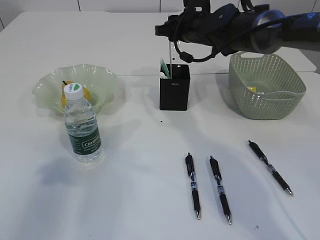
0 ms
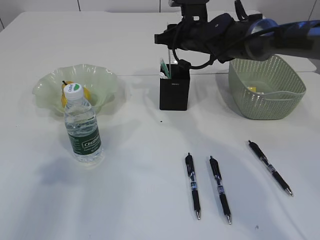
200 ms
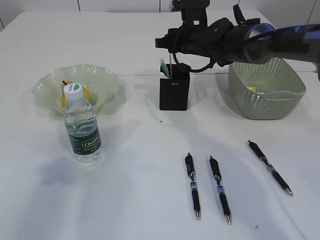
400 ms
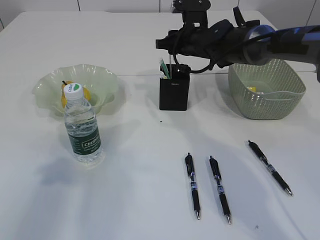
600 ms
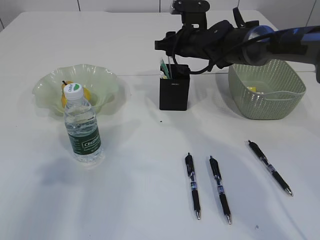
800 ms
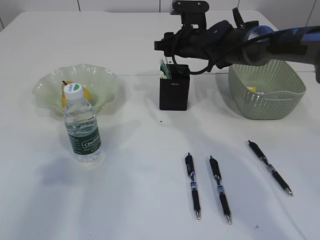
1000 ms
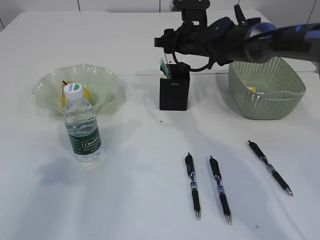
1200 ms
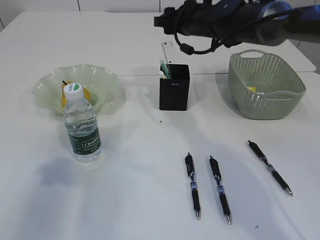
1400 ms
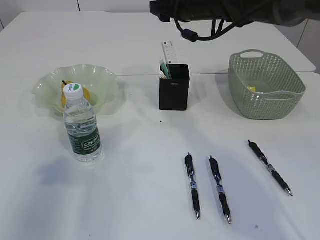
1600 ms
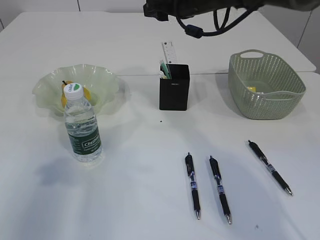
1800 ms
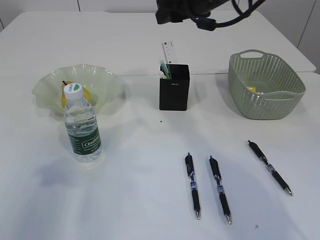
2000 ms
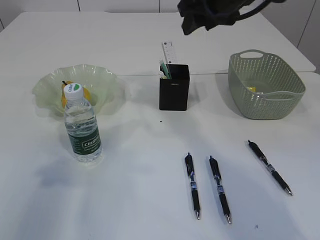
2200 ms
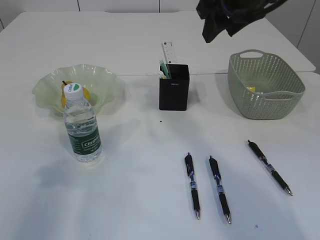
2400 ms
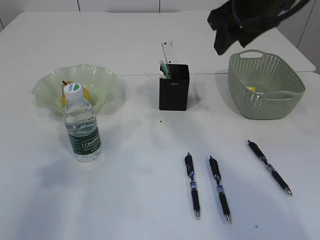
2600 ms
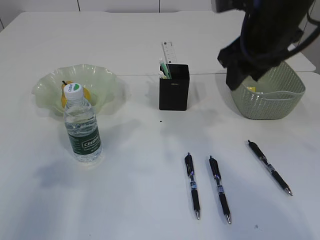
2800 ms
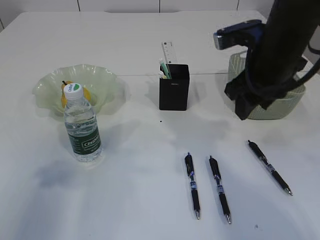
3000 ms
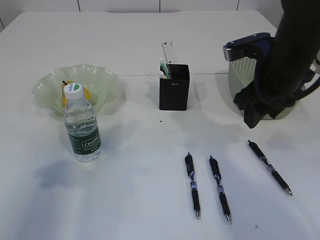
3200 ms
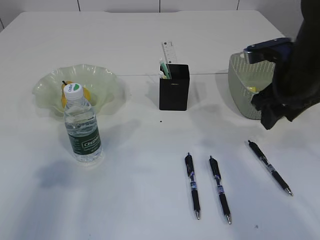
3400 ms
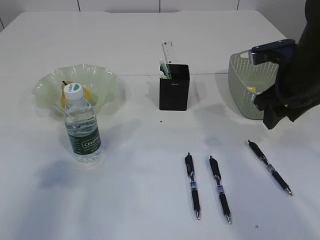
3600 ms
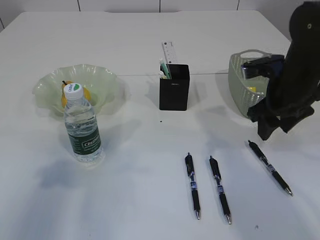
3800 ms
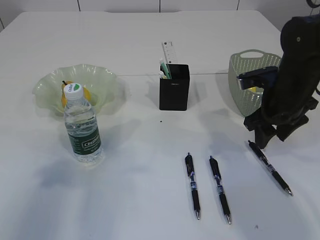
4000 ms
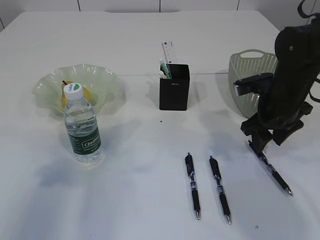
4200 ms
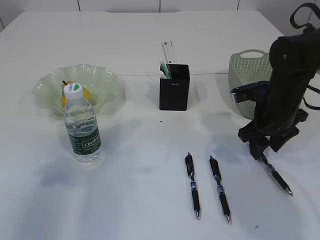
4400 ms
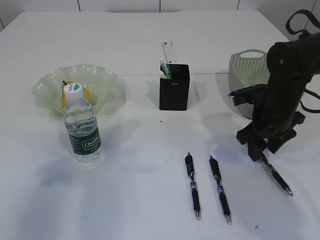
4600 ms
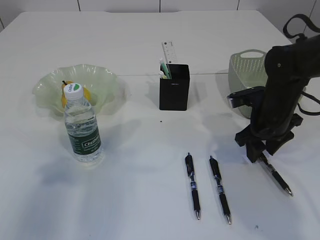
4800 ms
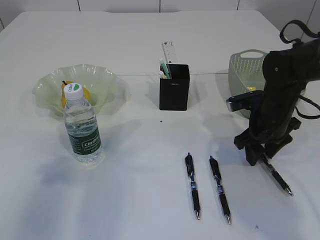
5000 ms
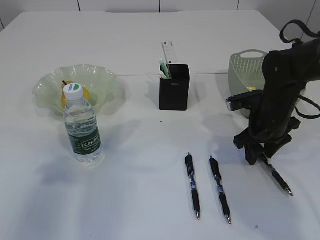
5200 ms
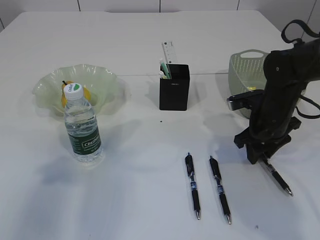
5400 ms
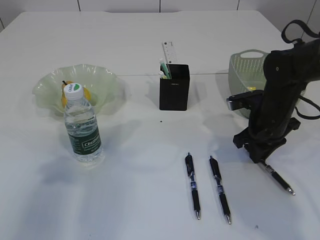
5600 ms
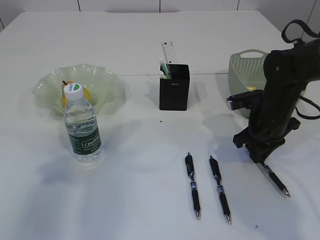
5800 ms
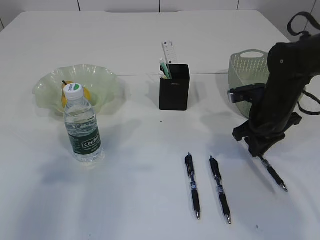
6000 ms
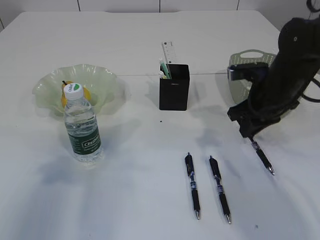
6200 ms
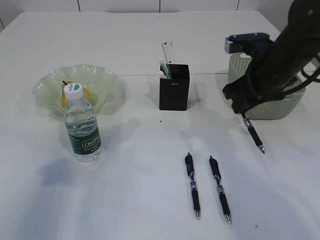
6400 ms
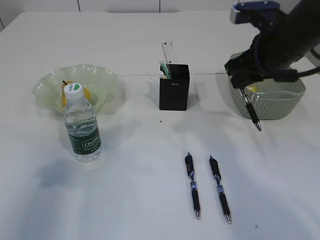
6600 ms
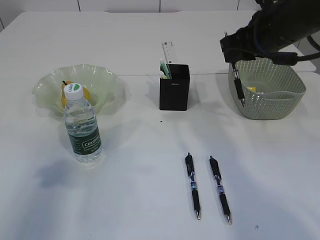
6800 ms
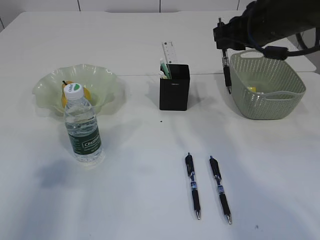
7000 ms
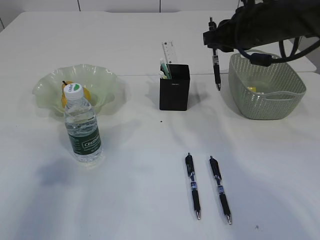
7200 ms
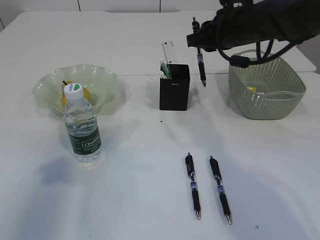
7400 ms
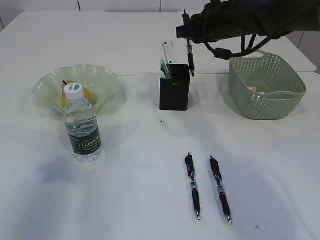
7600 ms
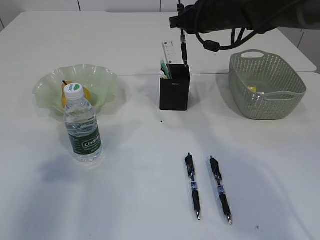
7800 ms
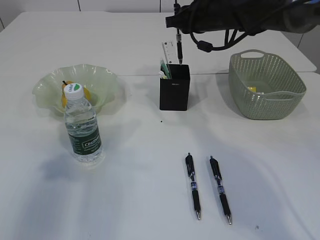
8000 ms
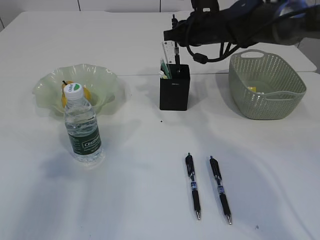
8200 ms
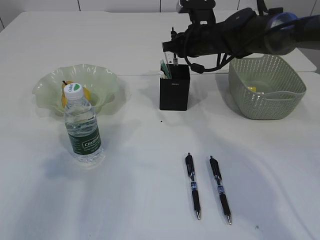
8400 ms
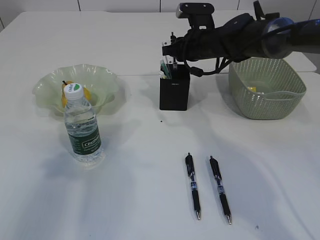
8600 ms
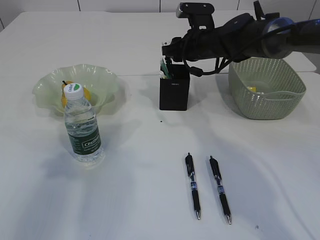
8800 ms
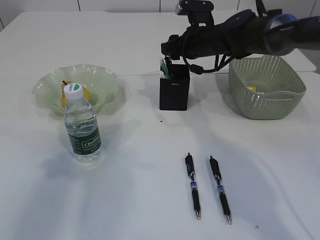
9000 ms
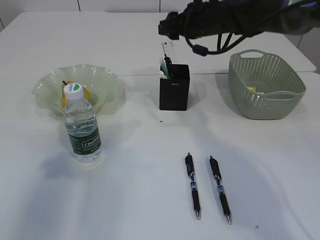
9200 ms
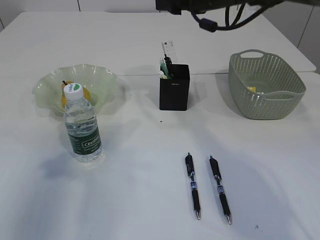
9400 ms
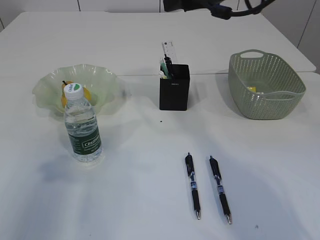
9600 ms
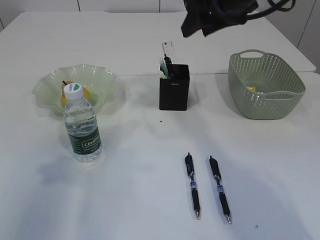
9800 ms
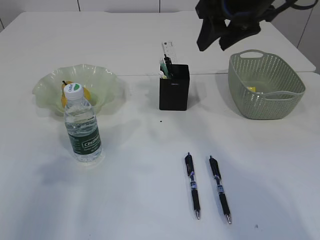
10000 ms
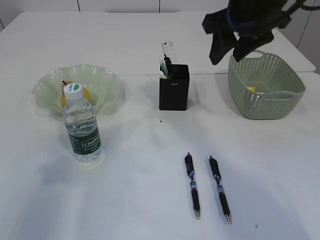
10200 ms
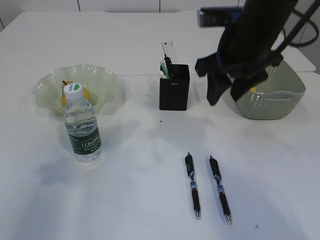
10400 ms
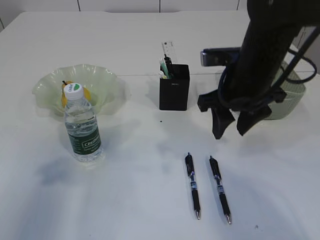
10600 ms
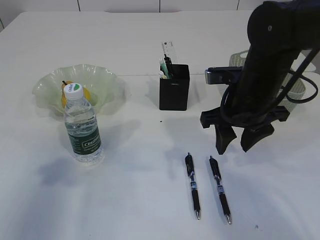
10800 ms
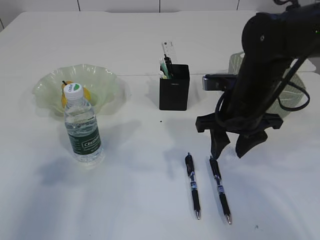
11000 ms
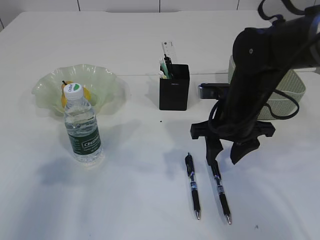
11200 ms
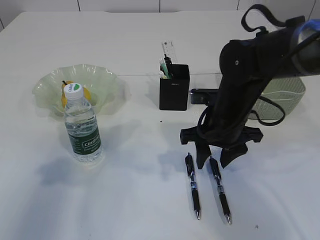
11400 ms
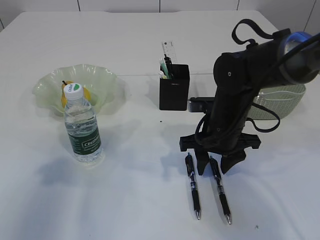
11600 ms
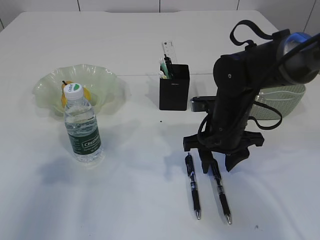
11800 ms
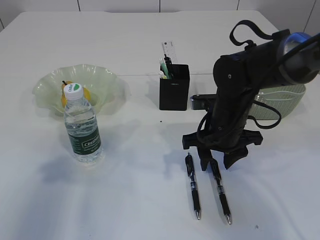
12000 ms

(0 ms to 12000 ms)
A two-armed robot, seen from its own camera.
Step, 1400 ms - 6000 ms: Pick up the pen with right arm.
Step, 6200 ms - 9000 ms: Place the pen into the pen holder.
0 ms - 1600 ms: The right gripper goes roughly 5 cm upward.
1600 ms - 3000 ms: The right gripper travels backward and to the right by some 15 cm.
3000 ms - 4400 ms: The right gripper moves downward and to the right, some 15 cm.
4400 ms - 6000 ms: The right gripper closes.
6000 ms - 7600 ms: The right gripper travels upward, to the left and forward by roughly 15 cm.
7600 ms - 9000 ms: The right gripper goes approximately 5 cm downward, and opens up.
9000 ms - 10400 ms: The right gripper moves backward and upward, approximately 15 cm.
10400 ms - 12000 ms: The right gripper goes approximately 15 cm downward.

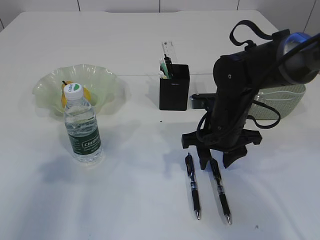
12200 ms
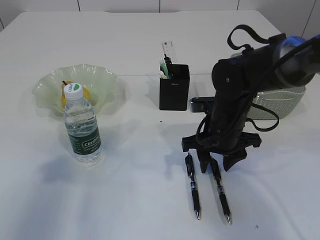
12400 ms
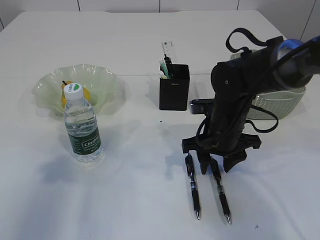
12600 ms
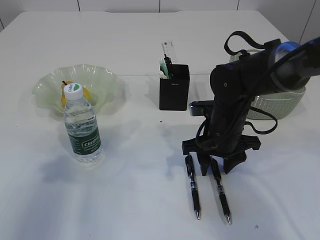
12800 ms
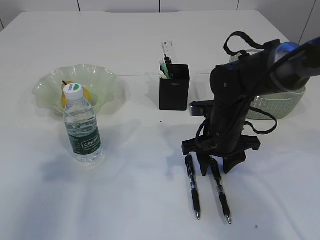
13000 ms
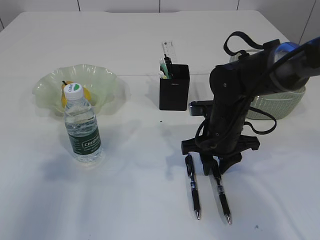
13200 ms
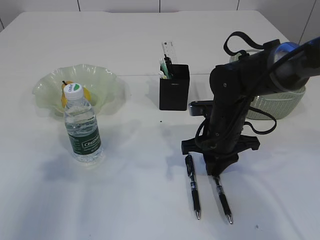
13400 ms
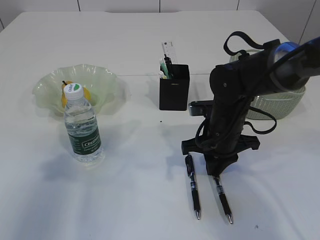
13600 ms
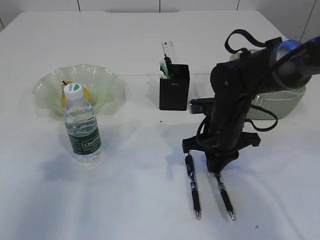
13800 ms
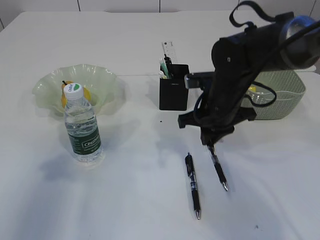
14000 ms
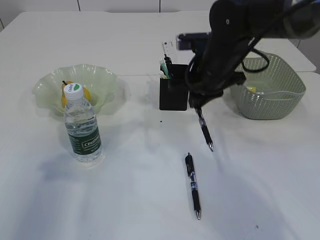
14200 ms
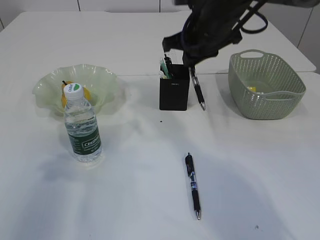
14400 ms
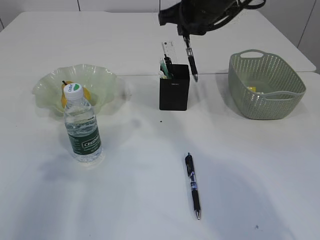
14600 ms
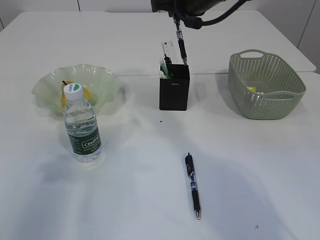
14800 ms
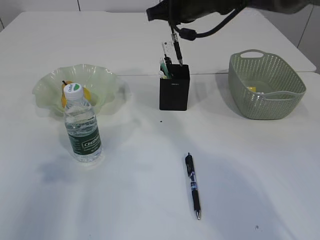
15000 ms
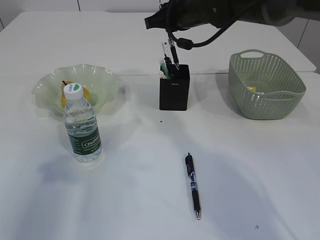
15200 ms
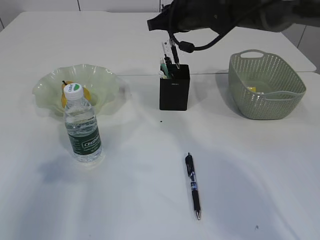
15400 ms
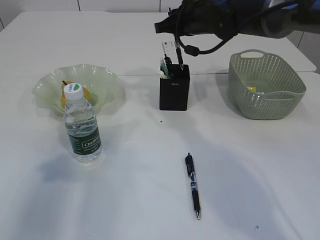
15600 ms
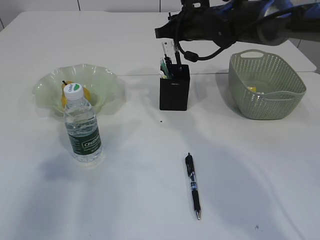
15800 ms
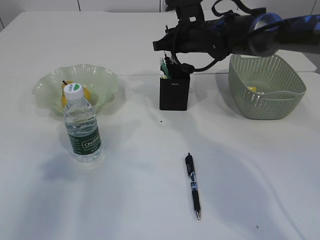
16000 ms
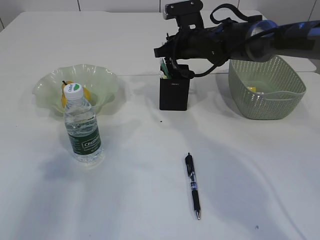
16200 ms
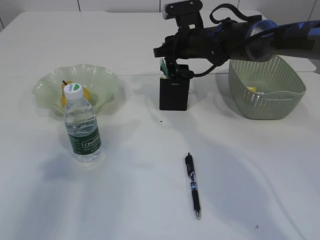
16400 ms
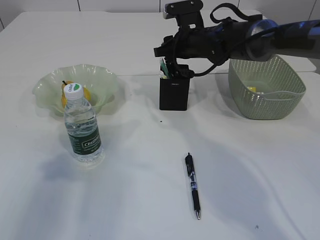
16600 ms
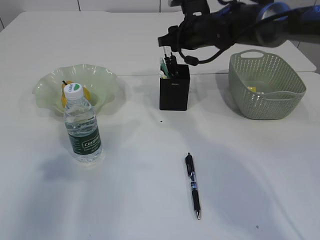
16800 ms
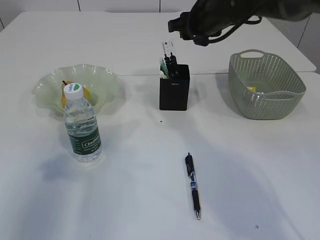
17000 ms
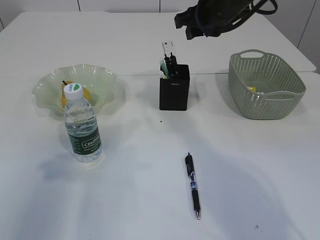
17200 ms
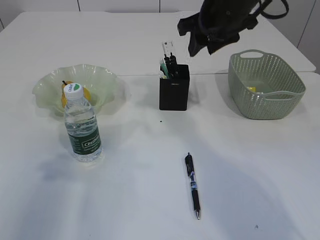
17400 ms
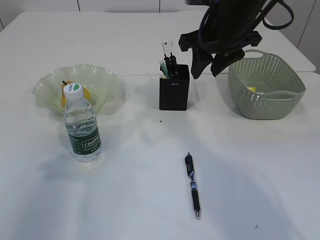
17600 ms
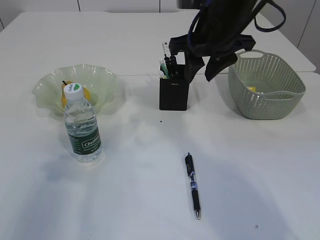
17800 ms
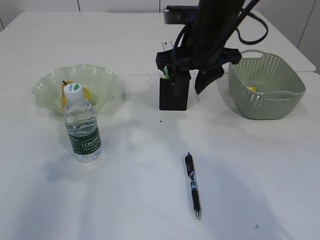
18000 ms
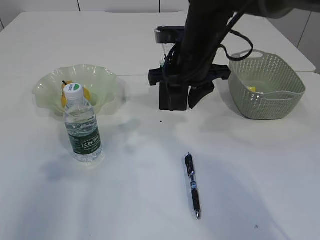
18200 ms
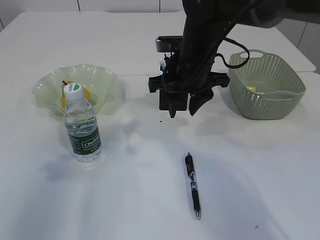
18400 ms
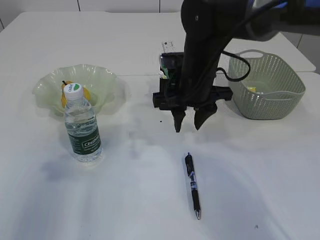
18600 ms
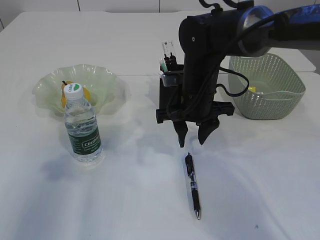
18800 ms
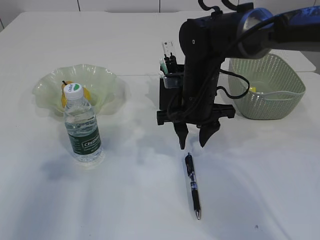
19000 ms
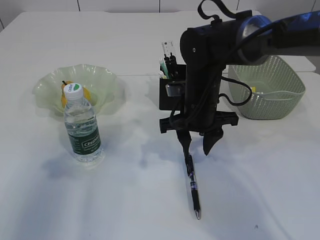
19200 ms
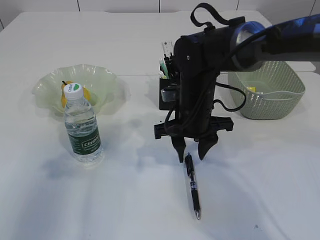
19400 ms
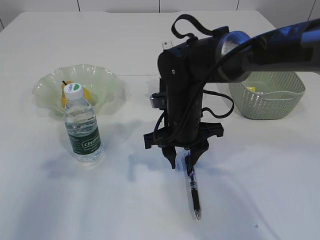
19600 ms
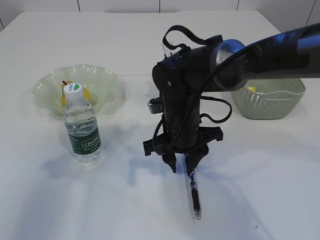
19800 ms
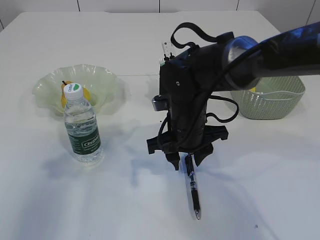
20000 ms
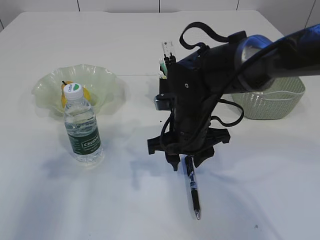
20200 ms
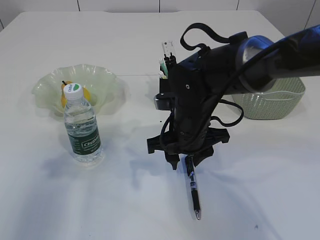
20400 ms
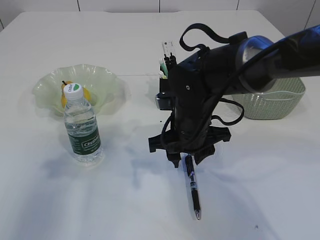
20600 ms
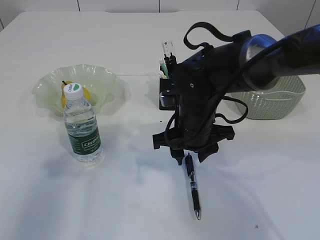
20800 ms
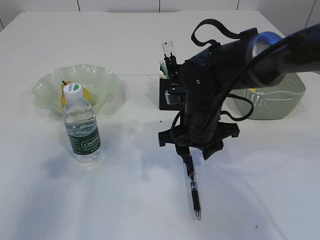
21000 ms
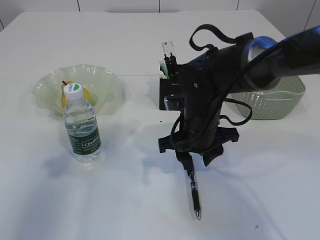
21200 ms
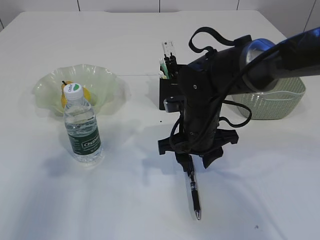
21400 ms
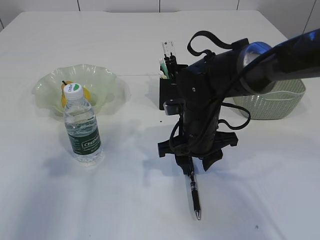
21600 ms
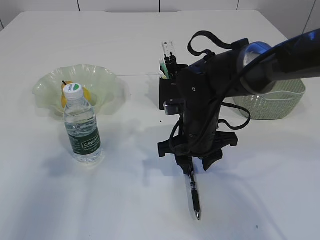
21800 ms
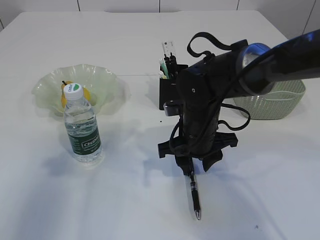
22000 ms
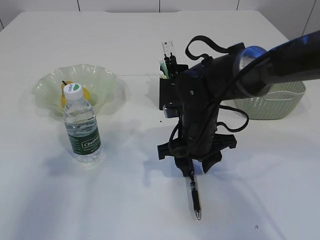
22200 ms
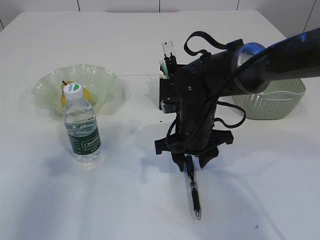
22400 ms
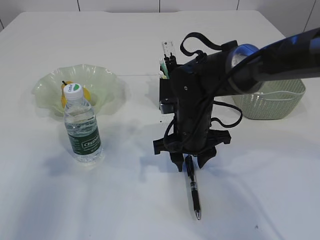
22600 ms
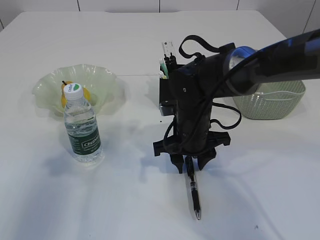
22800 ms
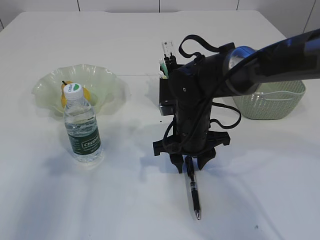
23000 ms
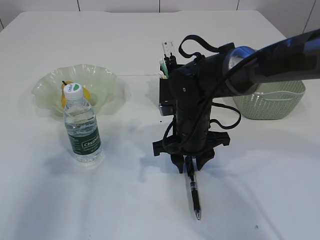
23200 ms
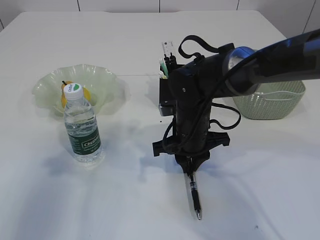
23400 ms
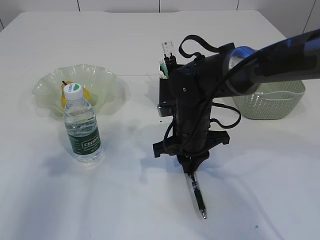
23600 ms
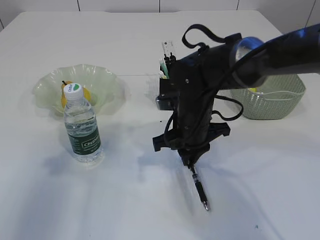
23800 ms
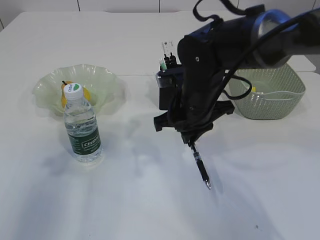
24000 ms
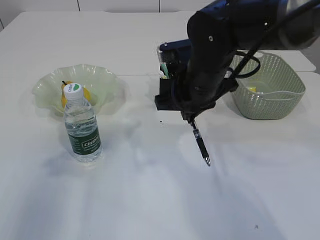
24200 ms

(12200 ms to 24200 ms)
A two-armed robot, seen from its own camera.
Step, 14000 ms - 16800 ms: Place the pen into the pen holder.
Step, 17000 ms - 24000 ms: Pick up the pen with right arm.
12200 ms - 13800 ms: The right gripper closes its fingers.
13800 ms - 15200 ms: The right gripper goes about 20 cm upward and forward.
15200 ms - 16600 ms: The right gripper heads downward, covering some 10 cm, and opens its fingers.
16600 ms - 18200 ms: The right gripper goes some 10 cm backward.
18200 ms - 19800 ms: The right gripper shifts about 10 cm downward.
19800 ms - 22600 ms: The grippers stay close to where they were, moving slightly.
22600 ms - 24200 ms: The right gripper travels upward by approximately 10 cm, and closes up.
